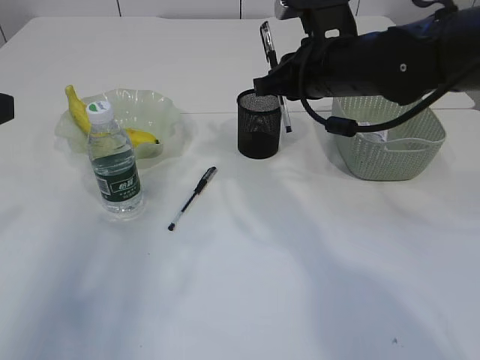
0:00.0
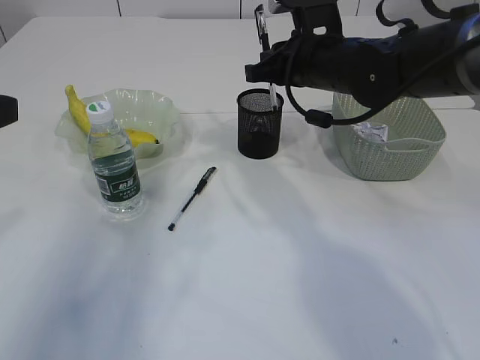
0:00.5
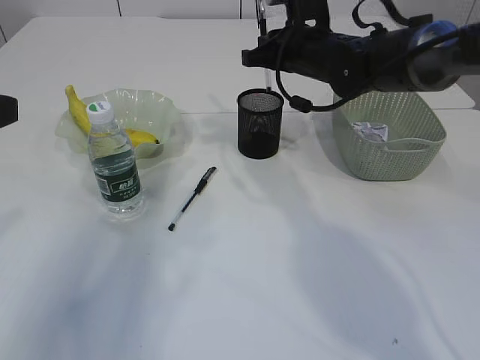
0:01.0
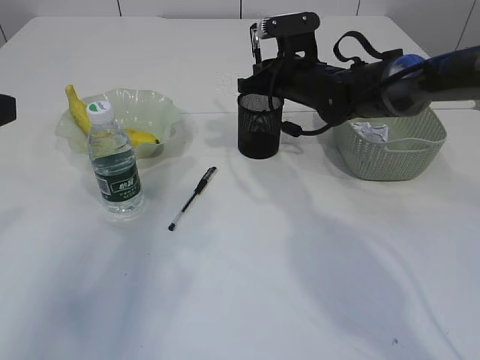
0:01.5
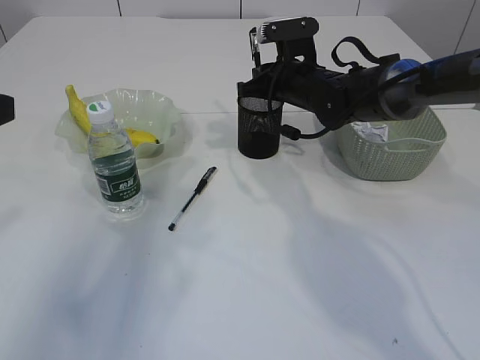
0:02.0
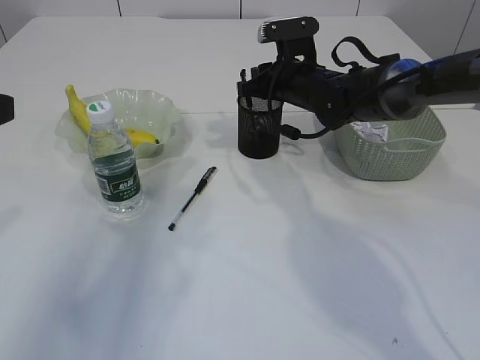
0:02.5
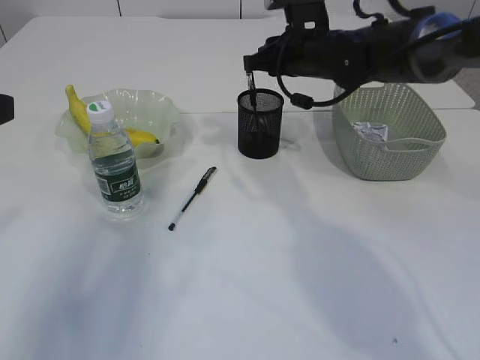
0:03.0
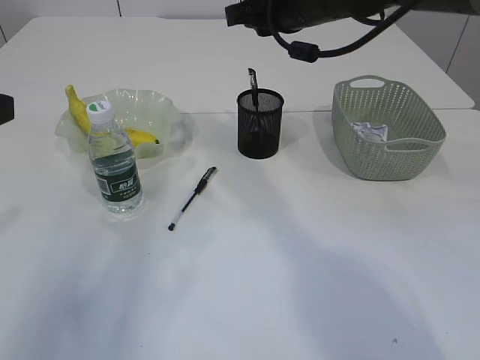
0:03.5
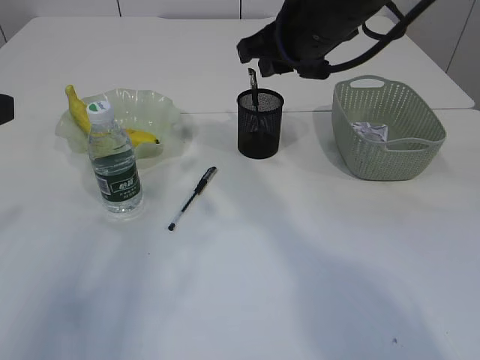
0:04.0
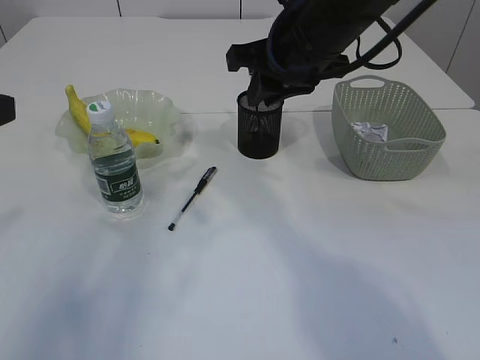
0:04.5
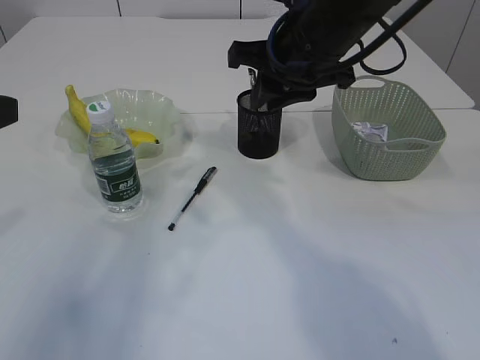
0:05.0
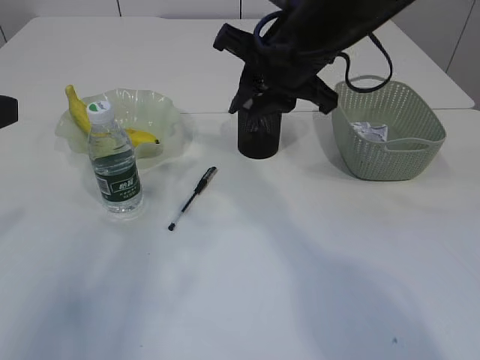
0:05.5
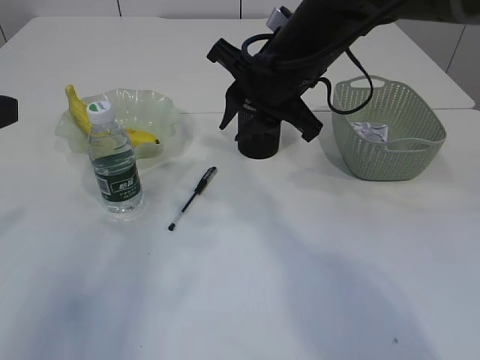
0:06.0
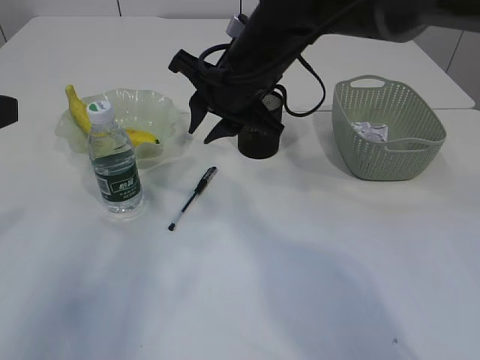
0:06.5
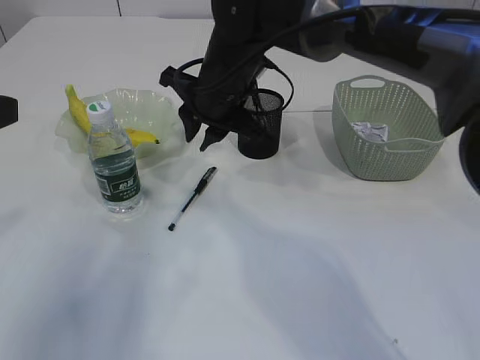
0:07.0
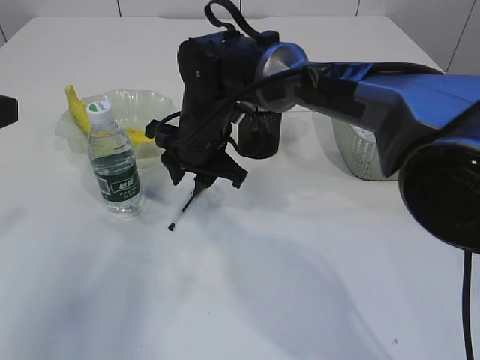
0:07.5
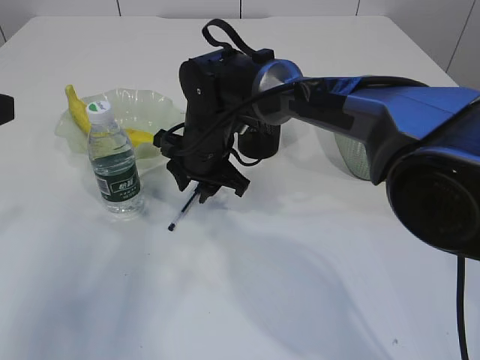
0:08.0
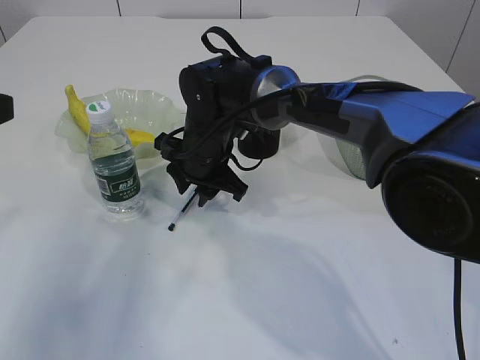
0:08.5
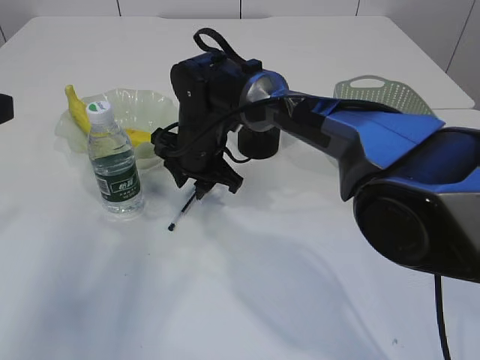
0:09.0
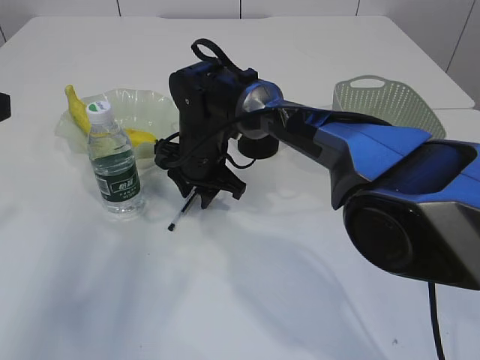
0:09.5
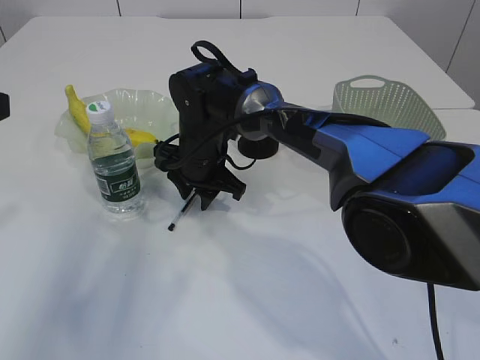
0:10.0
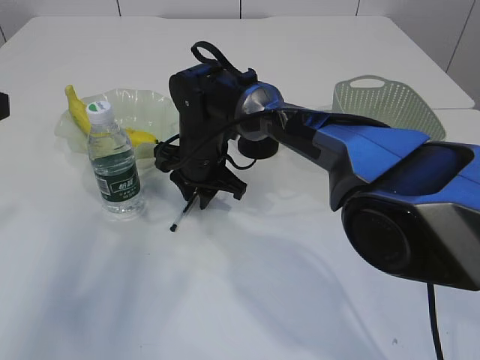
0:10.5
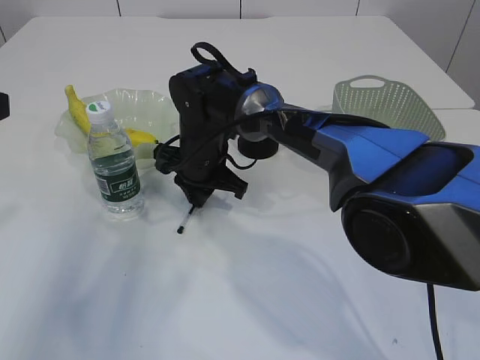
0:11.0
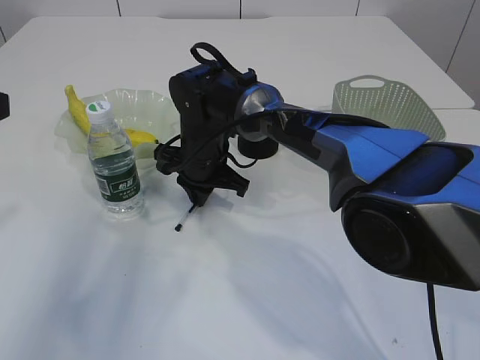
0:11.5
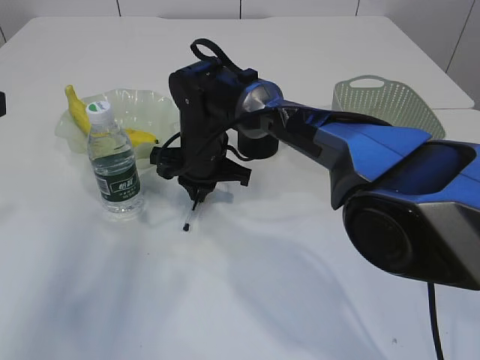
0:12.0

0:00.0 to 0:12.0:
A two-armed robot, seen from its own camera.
Step, 0:00.0 to 0:03.0: Place the pen into the pen holder.
0:00.0 to 0:02.0: The right gripper moves forward and downward, approximately 15 cm.
0:02.0 to 0:04.0: The right gripper shifts some 15 cm upward and backward.
0:06.0 to 0:08.0: The right gripper moves downward and to the left, about 15 cm.
0:10.0 to 0:12.0: The right gripper closes.

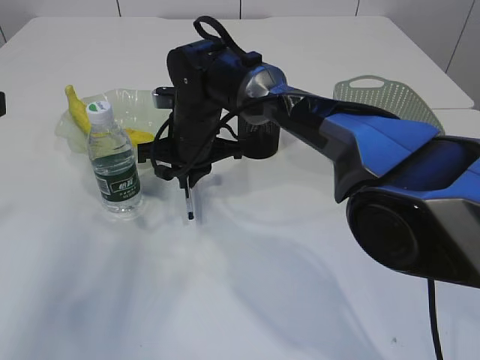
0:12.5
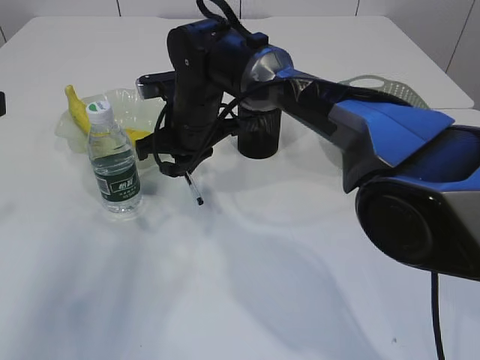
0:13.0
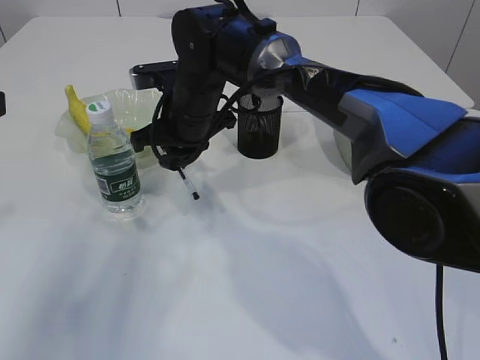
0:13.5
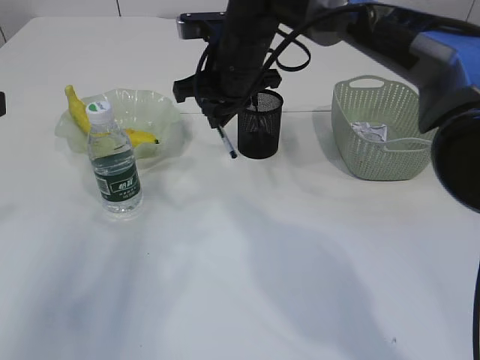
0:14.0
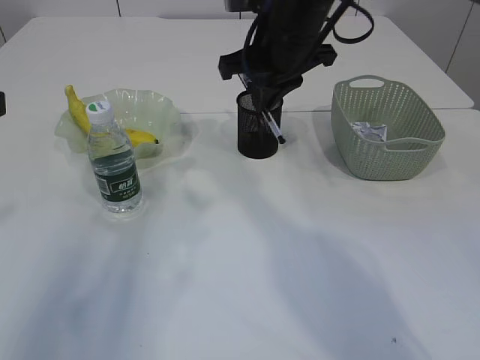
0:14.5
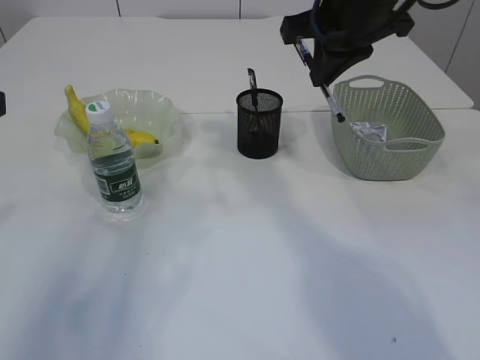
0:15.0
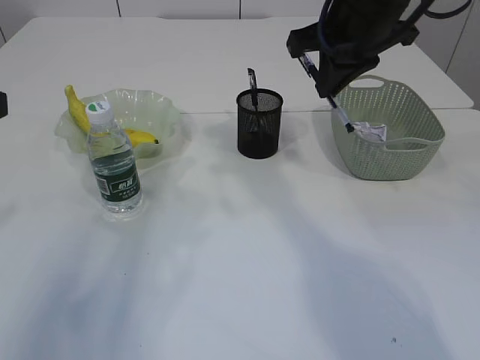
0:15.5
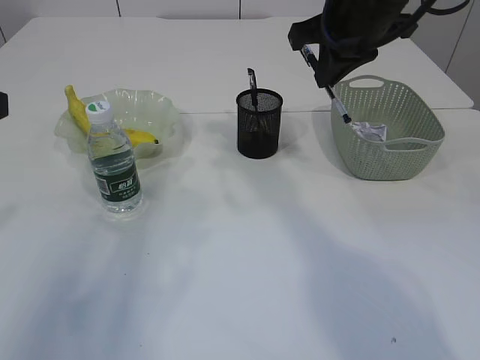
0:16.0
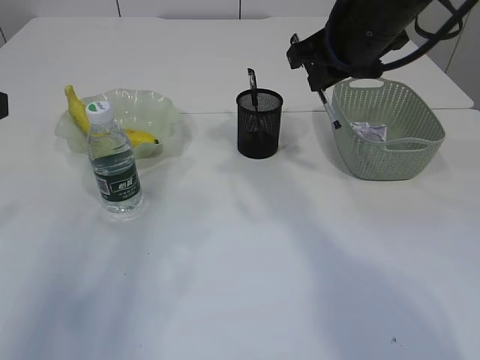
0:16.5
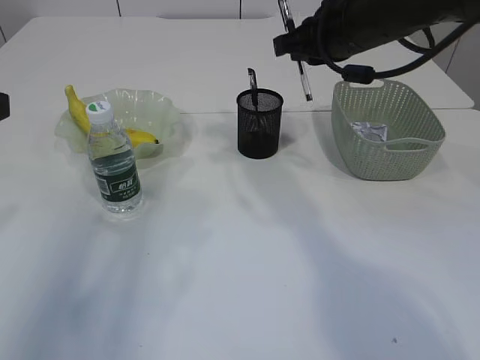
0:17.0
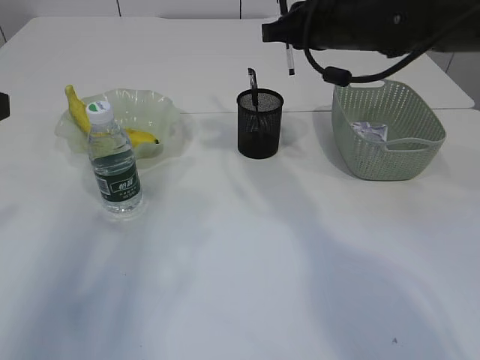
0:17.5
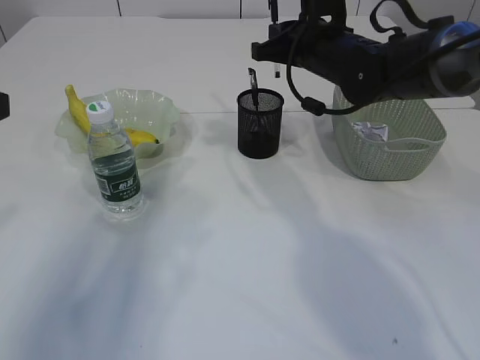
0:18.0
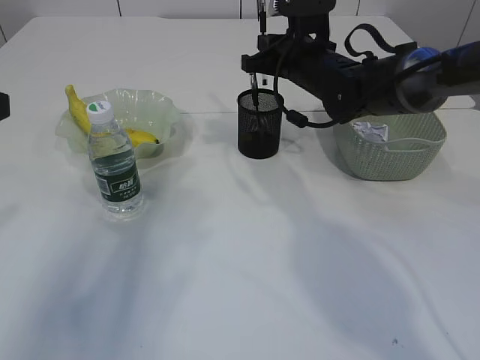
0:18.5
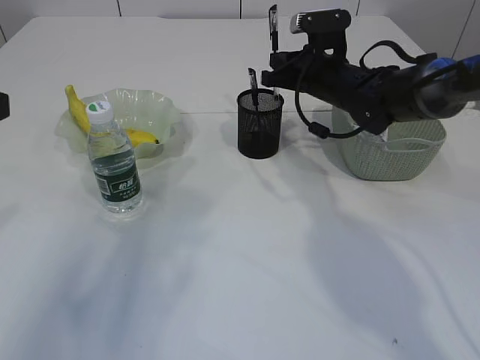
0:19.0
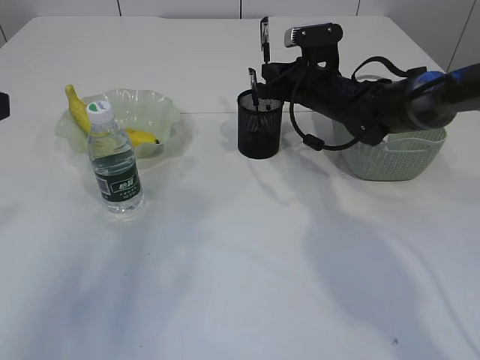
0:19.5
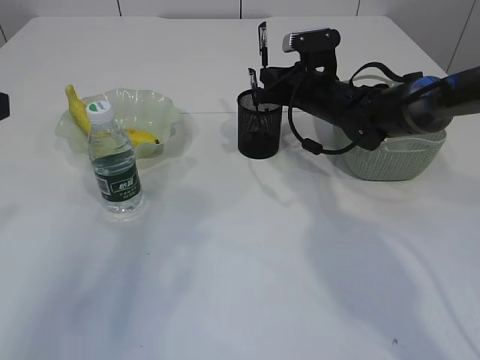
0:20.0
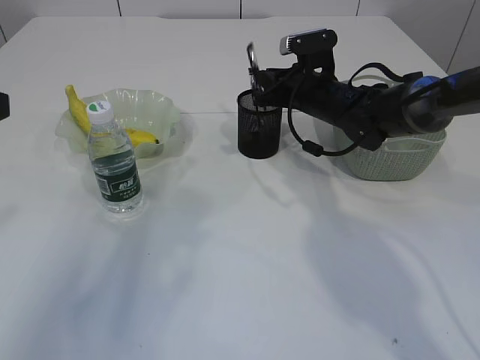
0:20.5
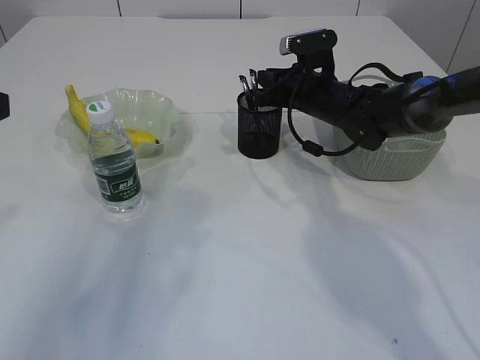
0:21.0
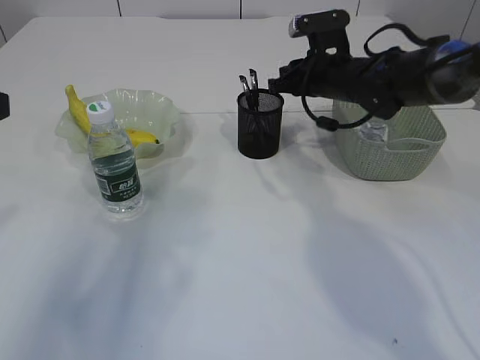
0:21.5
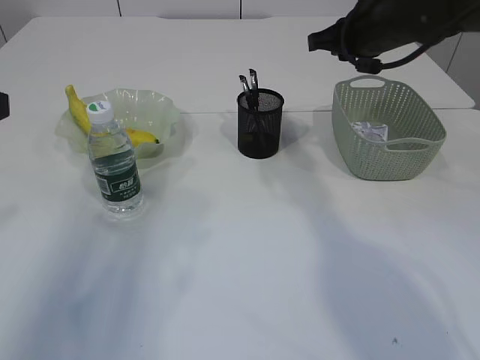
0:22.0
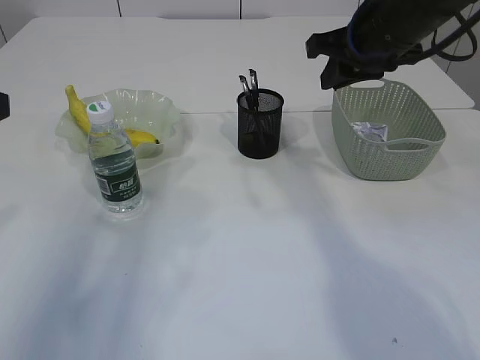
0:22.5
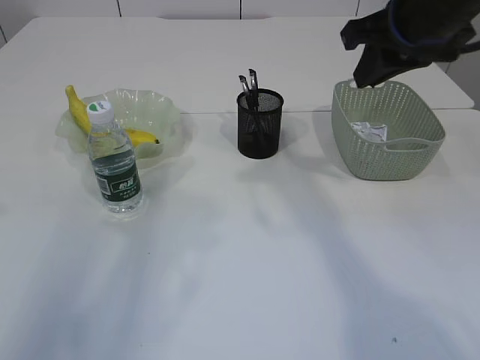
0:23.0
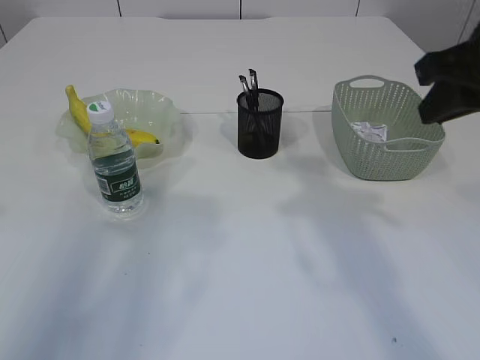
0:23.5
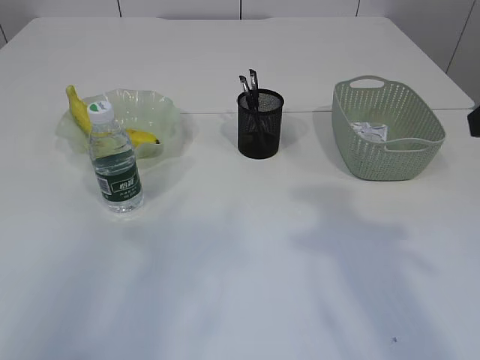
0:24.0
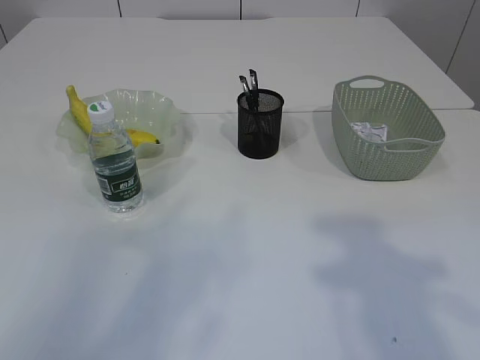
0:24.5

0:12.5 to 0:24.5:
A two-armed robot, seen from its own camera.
Step, 0:13.5 to 0:21.0: Place the pen into the pen holder.
0:12.5 to 0:14.5: The right gripper shifts approximately 15 cm upward and to the right.
0:14.5 to 0:16.5: The right gripper is displaced to the right by approximately 5 cm.
0:16.5 to 0:18.5: The right gripper shifts about 15 cm downward and forward.
0:18.5 to 0:20.5: The right gripper goes approximately 5 cm downward.
0:20.5 to 0:22.5: The right gripper shifts about 15 cm upward and backward.
0:22.5 to 0:24.5: The left gripper travels backward and upward by about 10 cm. Meanwhile the right gripper heads backward, covering approximately 25 cm.
